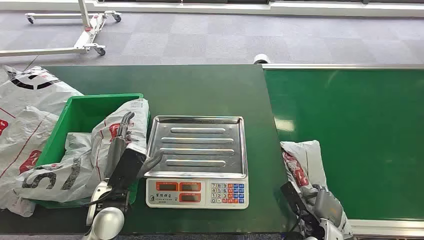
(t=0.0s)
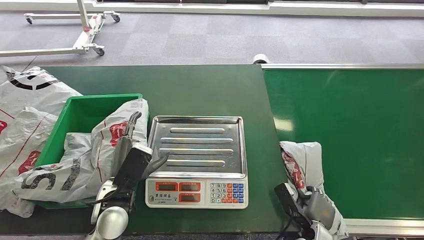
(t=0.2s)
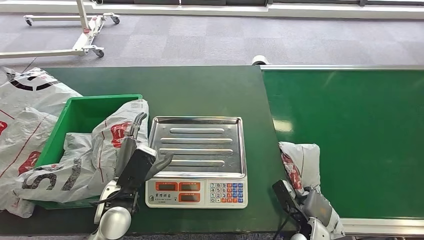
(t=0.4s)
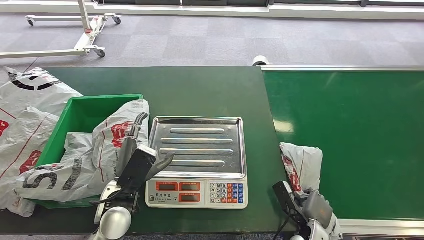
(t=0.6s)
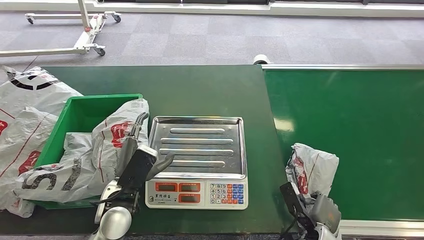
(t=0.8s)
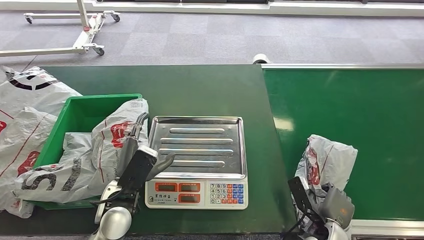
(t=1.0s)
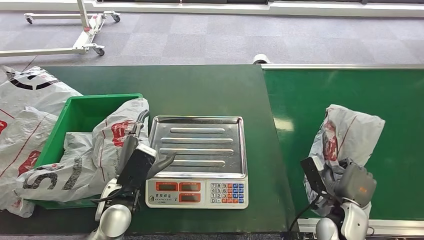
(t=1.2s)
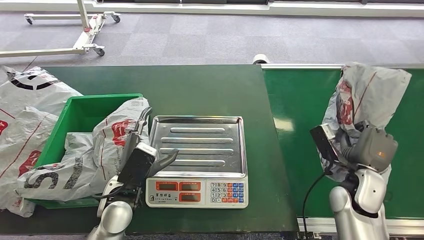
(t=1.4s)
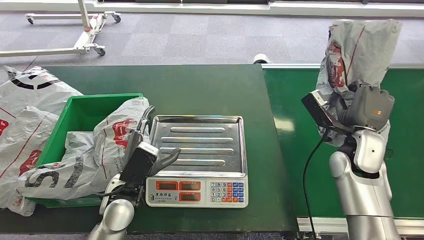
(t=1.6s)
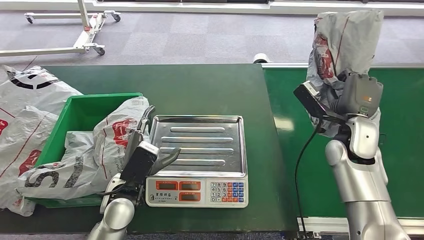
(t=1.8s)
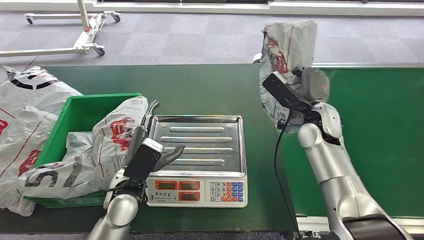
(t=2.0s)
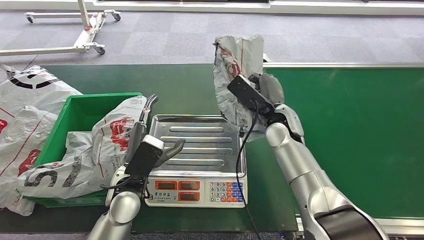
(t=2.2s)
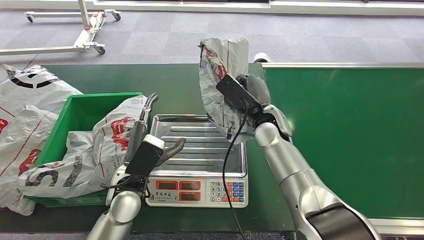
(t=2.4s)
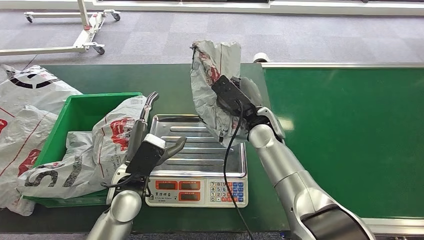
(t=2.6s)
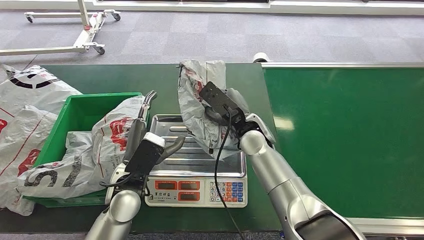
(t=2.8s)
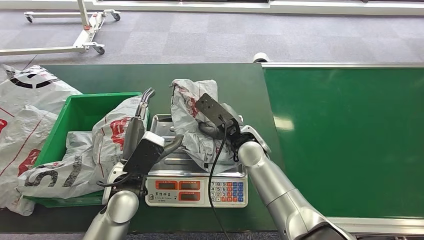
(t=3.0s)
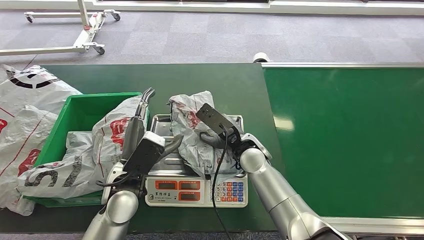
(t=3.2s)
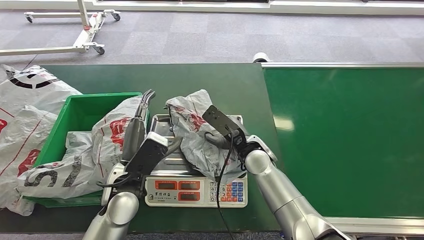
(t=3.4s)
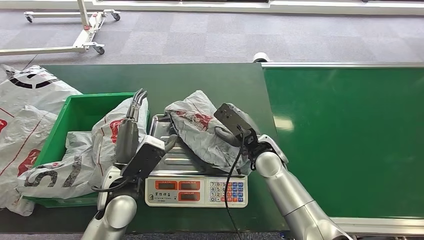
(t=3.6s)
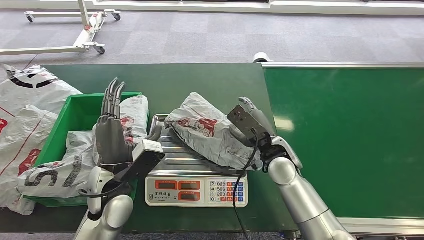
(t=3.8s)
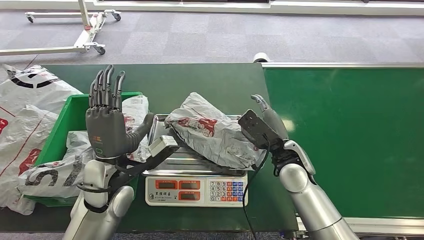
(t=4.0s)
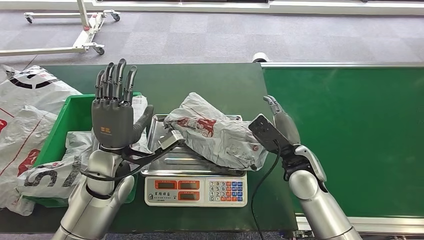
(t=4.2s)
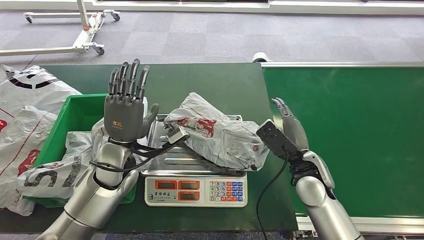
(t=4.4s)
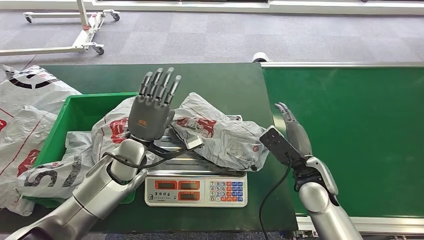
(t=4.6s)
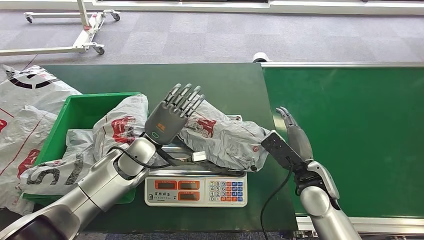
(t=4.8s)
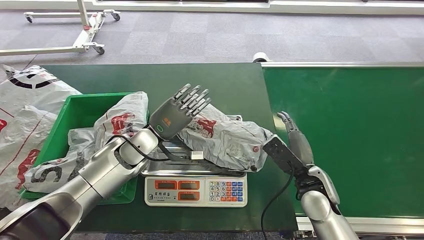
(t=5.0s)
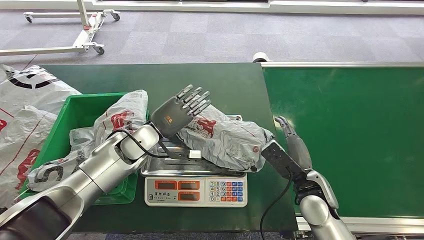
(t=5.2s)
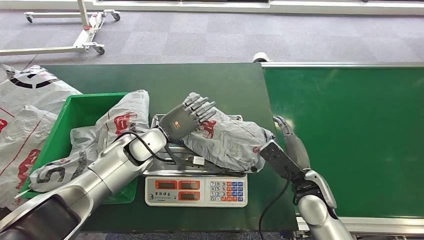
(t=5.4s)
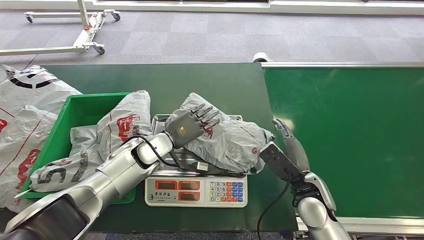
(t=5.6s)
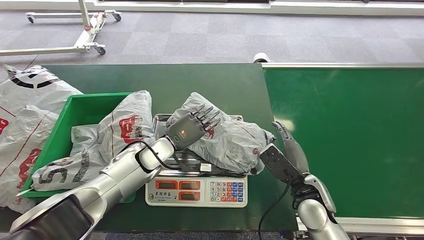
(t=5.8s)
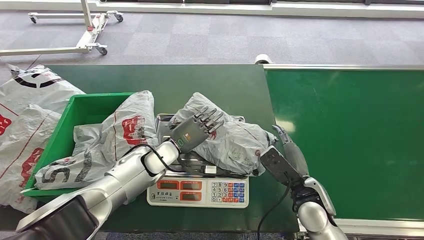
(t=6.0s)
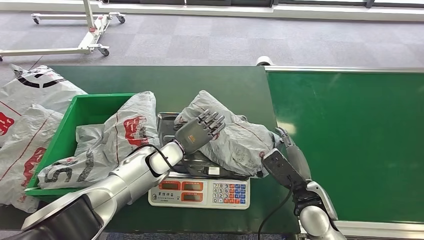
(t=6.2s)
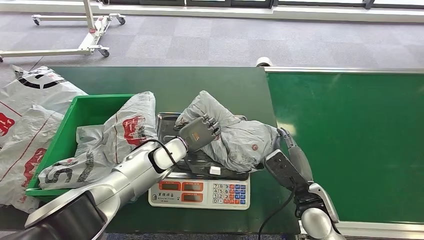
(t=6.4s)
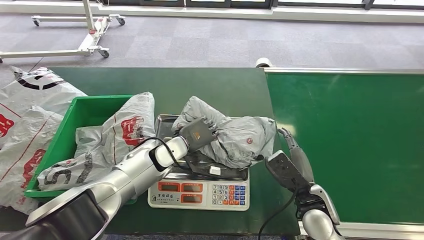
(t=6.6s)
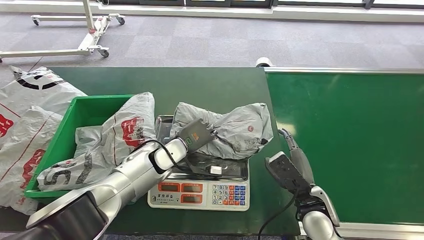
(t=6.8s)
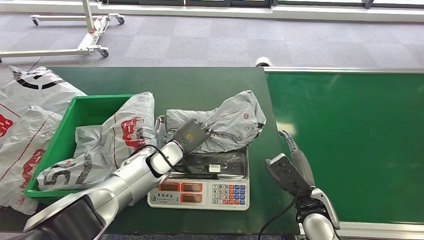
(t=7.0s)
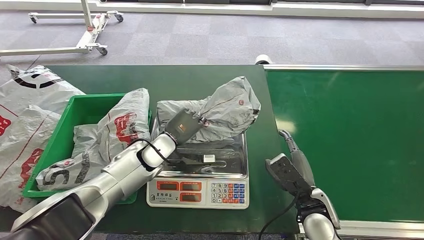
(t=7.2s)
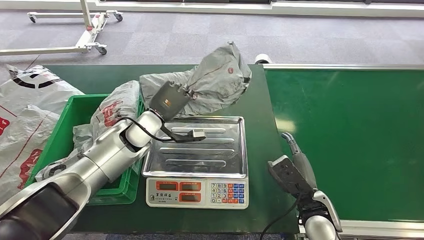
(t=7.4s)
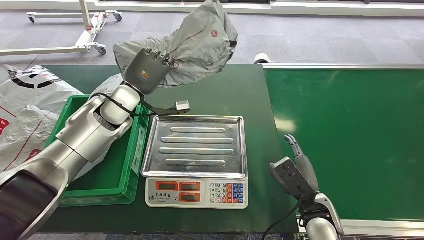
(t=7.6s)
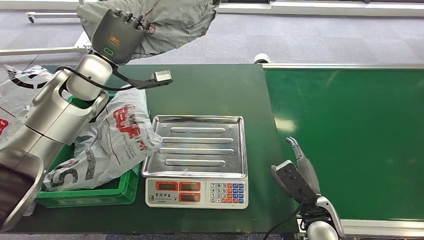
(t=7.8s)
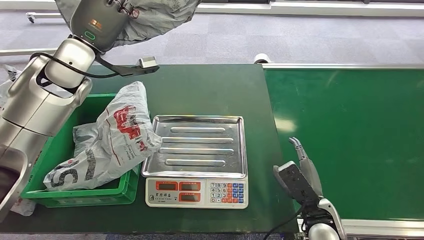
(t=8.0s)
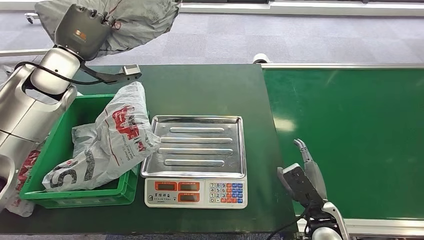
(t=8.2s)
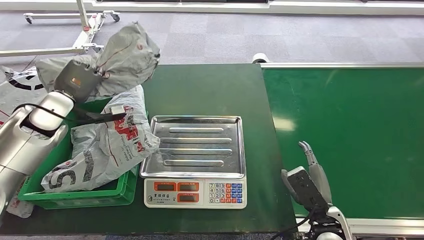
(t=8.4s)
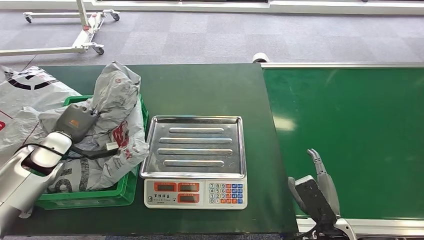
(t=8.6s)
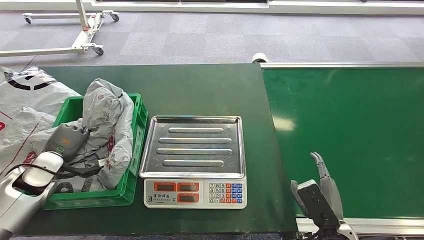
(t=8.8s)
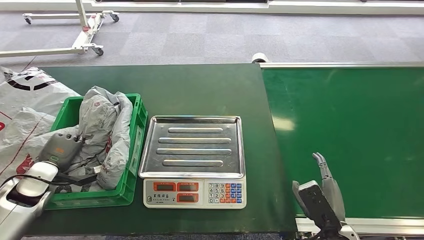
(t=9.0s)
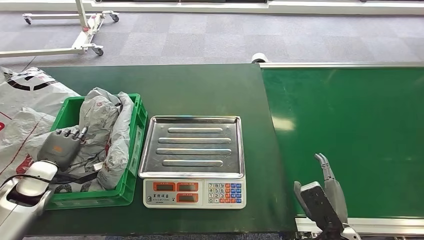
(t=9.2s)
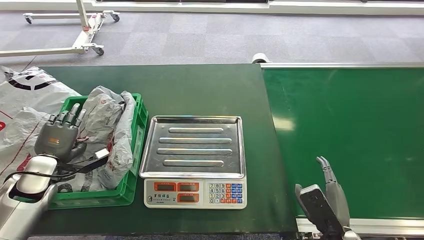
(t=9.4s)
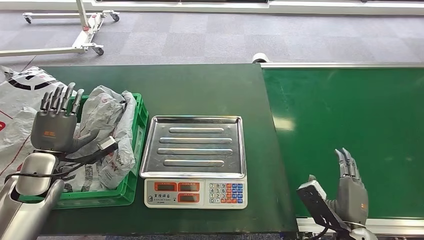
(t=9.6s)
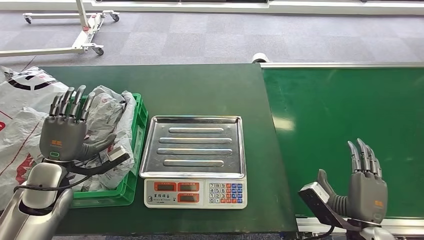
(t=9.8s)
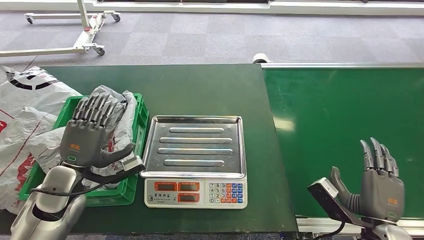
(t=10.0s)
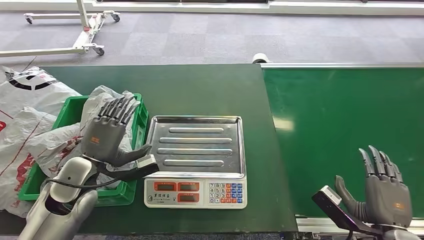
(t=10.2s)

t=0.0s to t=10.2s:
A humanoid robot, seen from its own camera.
Step, t=0.0s to t=1.6s: Pick up the package from the conveyor belt.
Step, t=1.8s to t=3.8s: Place the package onto the inbound machine.
Step, t=4.0s to t=7.4s: Pick up the package from the inbound machine.
Step, t=7.8s to t=10.0s: Place the package into the parcel locker.
t=8.8s to t=10.2s: The right hand goes about 10 cm to the right; the left hand is displaced to the right by approximately 15 cm.
